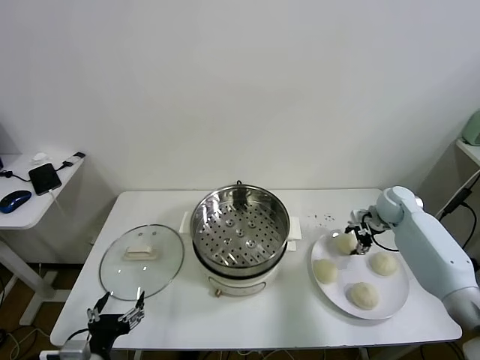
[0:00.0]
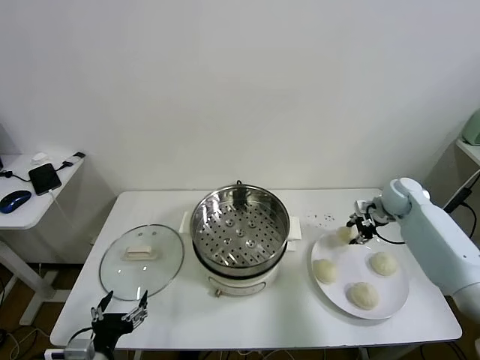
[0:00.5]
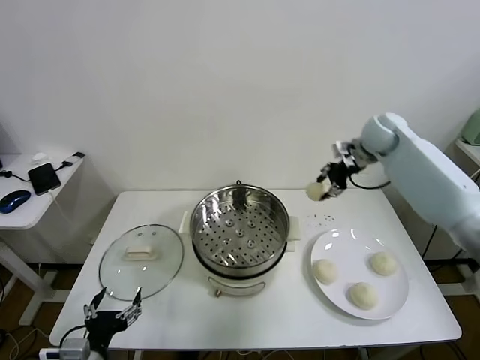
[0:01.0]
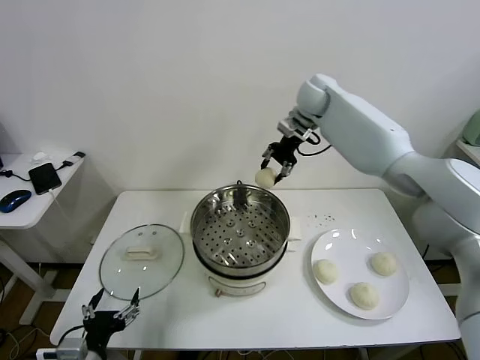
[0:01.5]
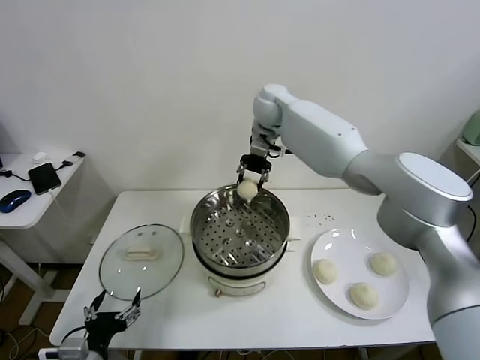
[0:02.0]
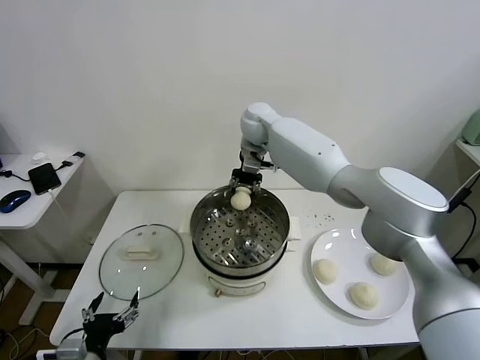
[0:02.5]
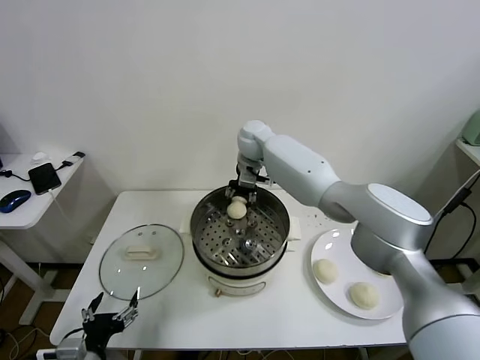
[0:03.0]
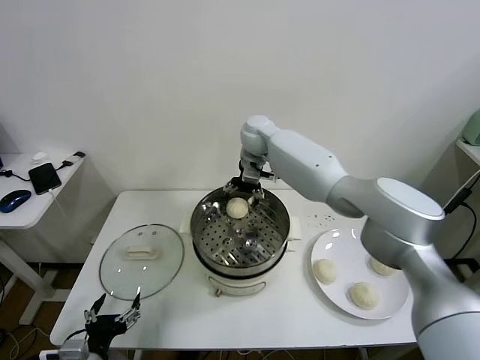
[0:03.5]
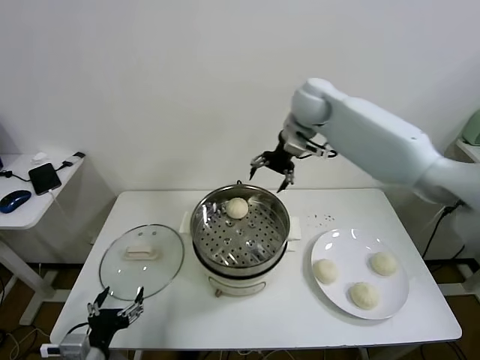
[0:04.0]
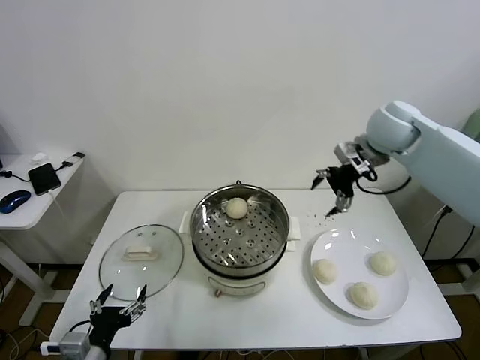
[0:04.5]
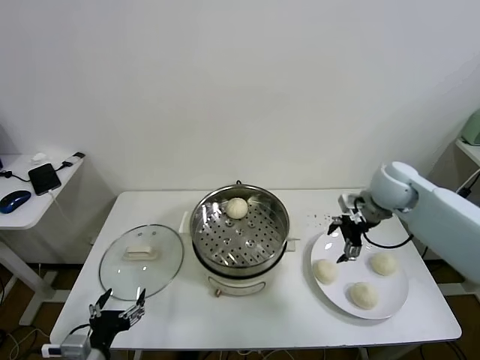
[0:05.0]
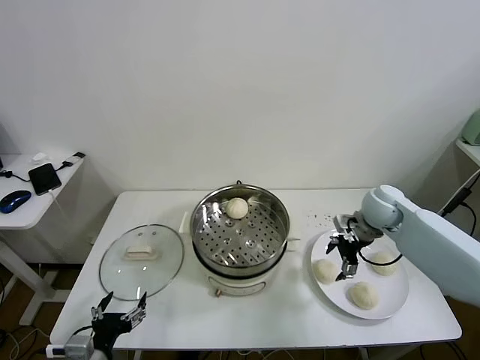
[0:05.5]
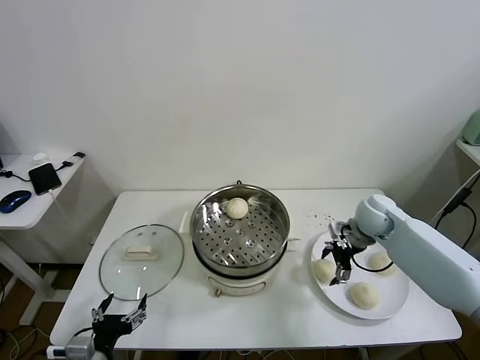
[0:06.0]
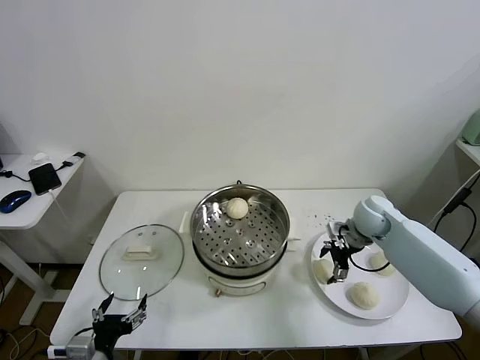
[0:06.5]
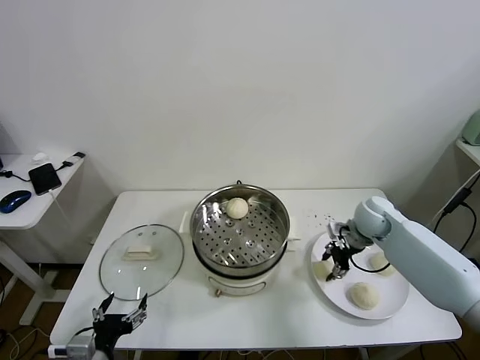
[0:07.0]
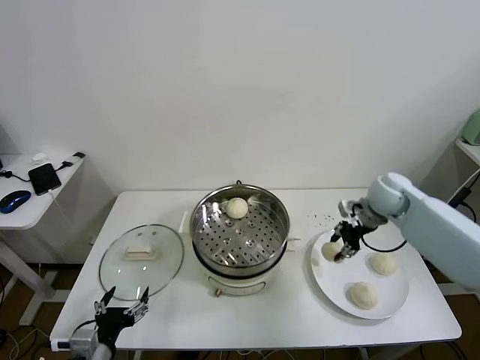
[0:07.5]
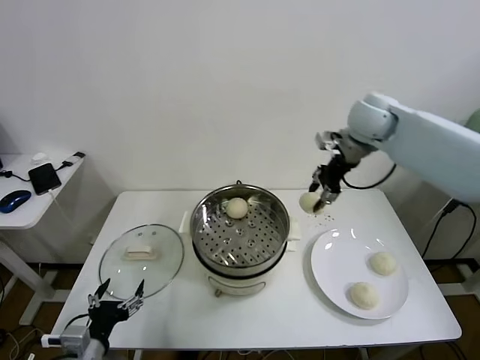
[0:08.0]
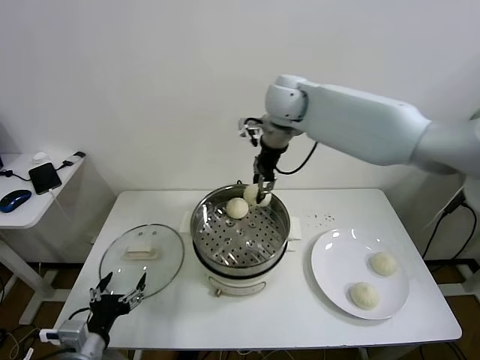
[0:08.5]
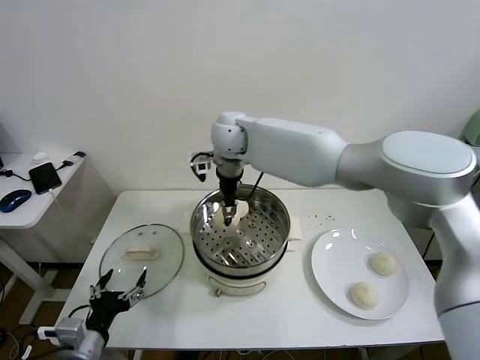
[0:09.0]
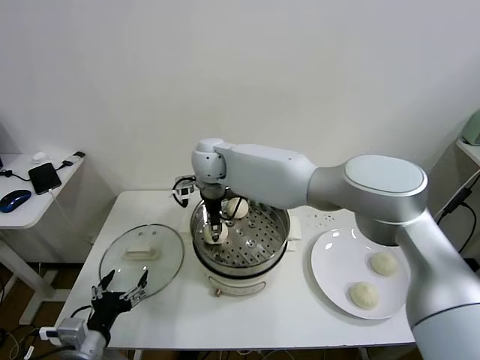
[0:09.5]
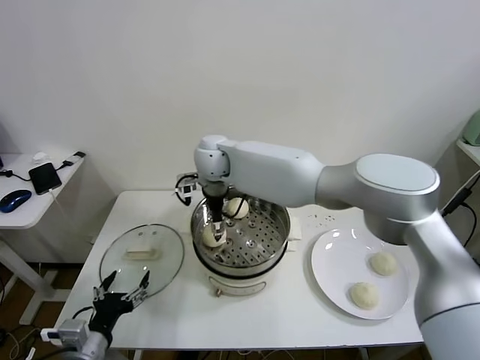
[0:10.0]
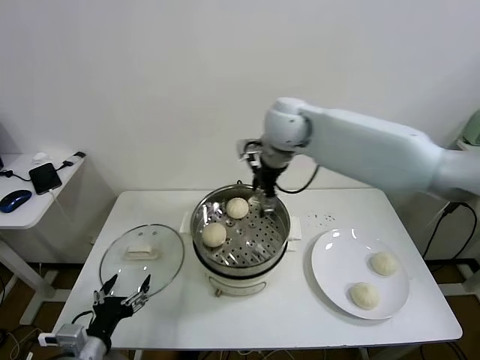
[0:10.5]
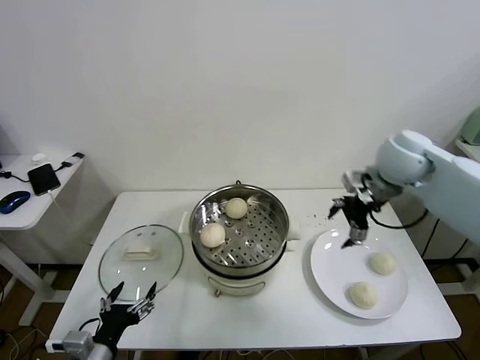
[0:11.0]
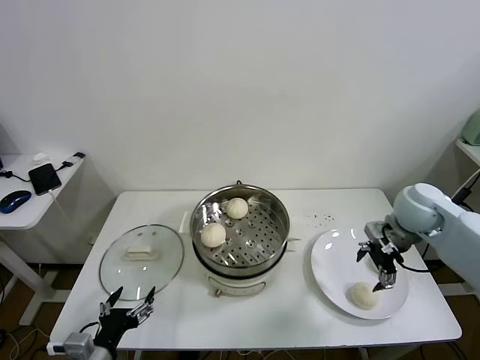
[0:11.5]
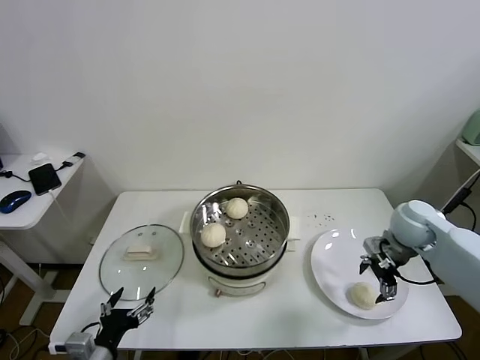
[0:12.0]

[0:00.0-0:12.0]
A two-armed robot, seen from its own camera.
Task of the whole recording: take steamed baozi put them in steamer.
Step, 0:00.5 to 0:03.0: Place the baozi on the steamer with right gripper.
Step, 0:03.5 to 0:07.0: Grasp the baozi in the plate with right gripper.
Step, 0:07.5 to 0:09.5: Place the baozi on the steamer with right gripper.
0:00.0 to 0:02.0: The right gripper shifts roughly 40 cm to the left and upward.
0:02.0 to 0:04.0: The right gripper goes approximately 15 cm to the right and backward, and opens.
0:04.0 to 0:06.0: The right gripper moves downward and to the right, about 30 cm.
0:06.0 to 0:08.0: The right gripper shifts some 25 cm upward, and closes its fingers.
0:08.0 to 0:10.0: The right gripper heads to the left, covering roughly 30 cm, and opens.
0:10.0 to 0:12.0: The right gripper goes approximately 40 cm to the right.

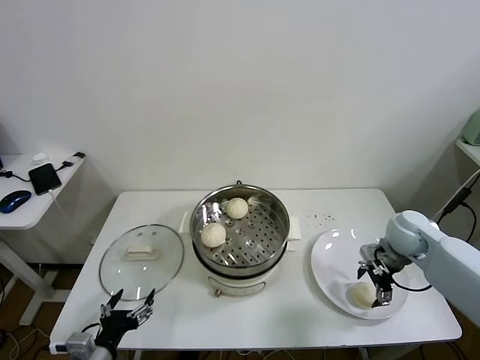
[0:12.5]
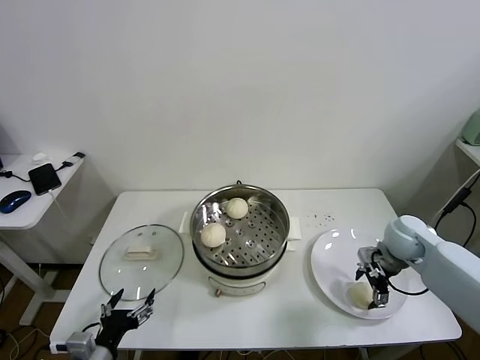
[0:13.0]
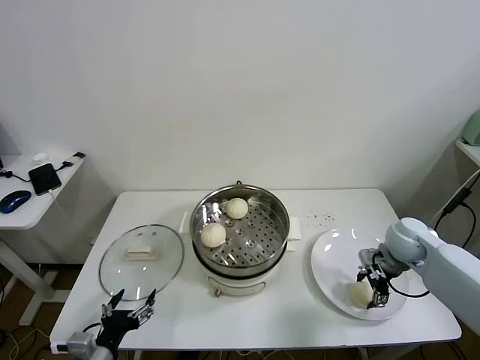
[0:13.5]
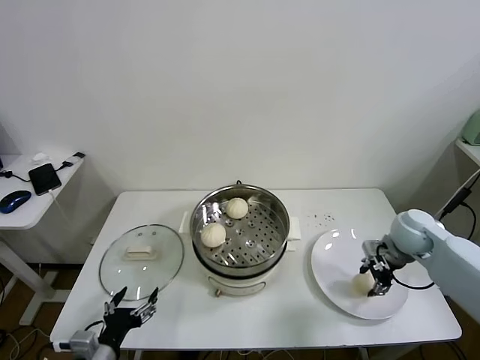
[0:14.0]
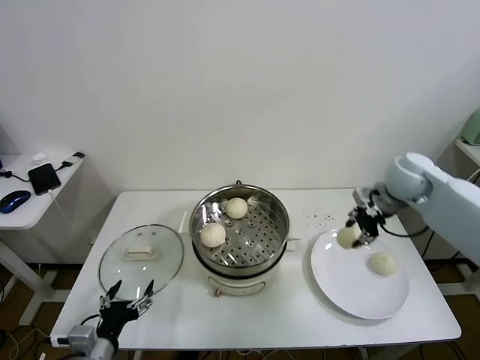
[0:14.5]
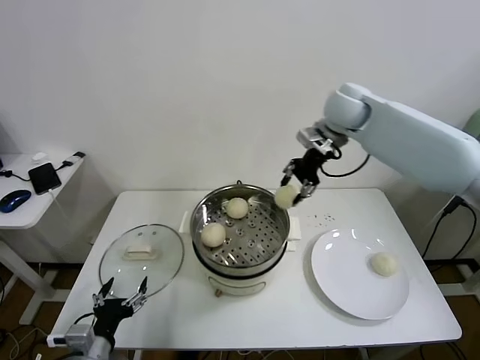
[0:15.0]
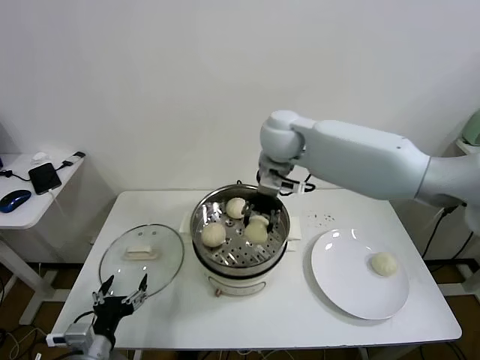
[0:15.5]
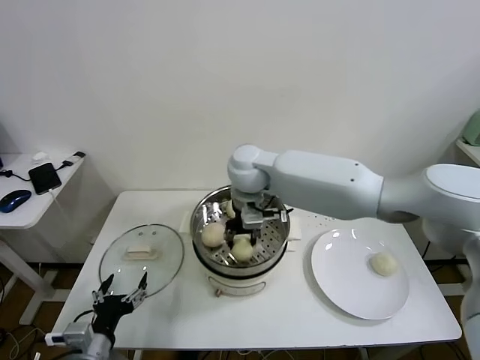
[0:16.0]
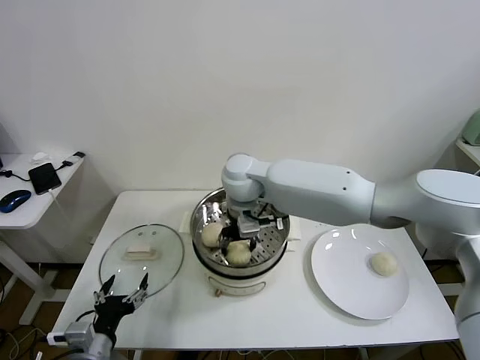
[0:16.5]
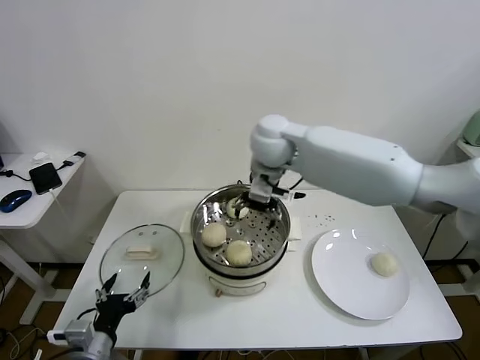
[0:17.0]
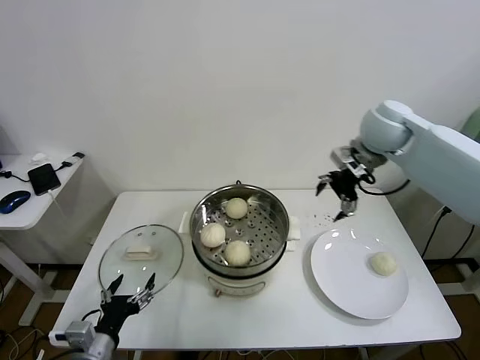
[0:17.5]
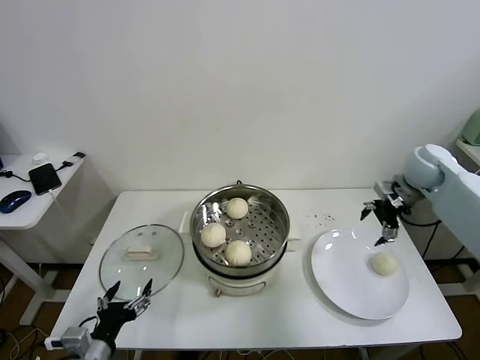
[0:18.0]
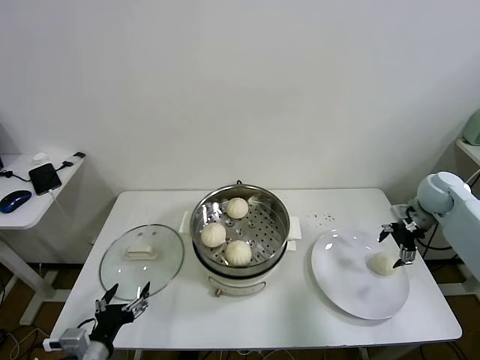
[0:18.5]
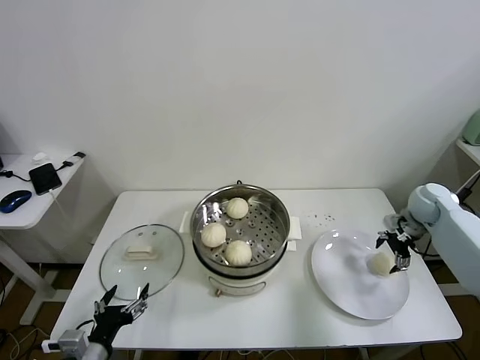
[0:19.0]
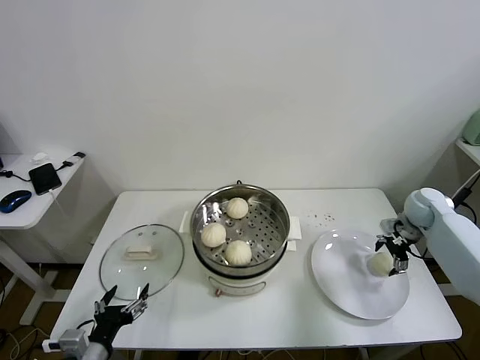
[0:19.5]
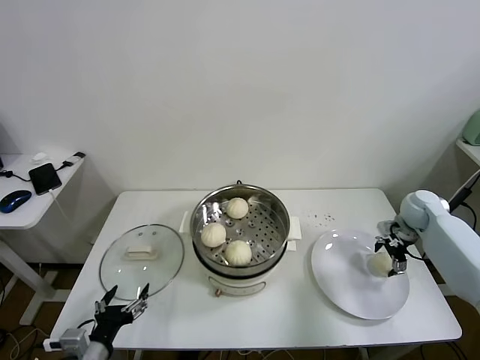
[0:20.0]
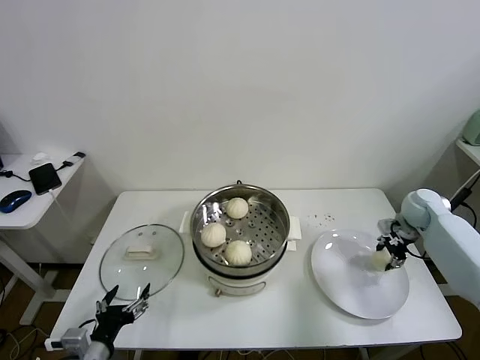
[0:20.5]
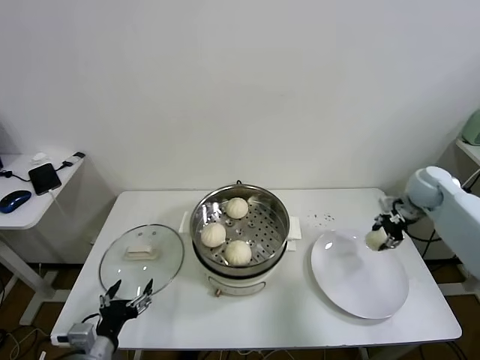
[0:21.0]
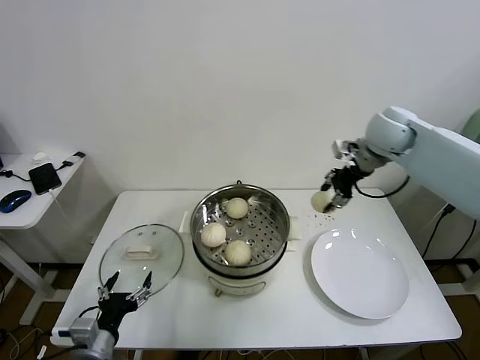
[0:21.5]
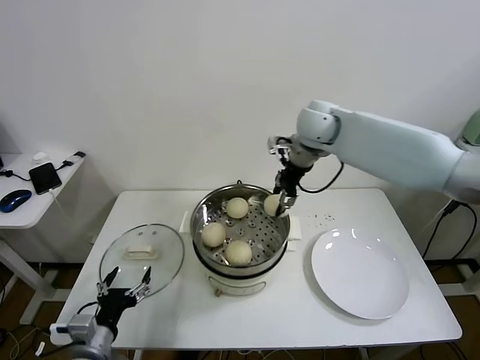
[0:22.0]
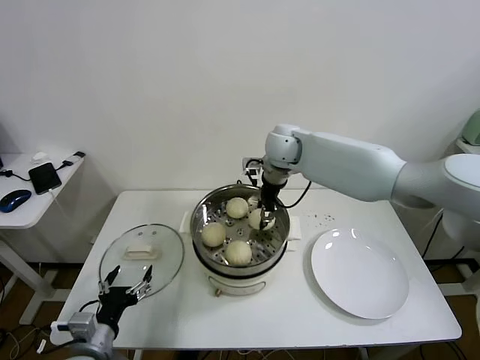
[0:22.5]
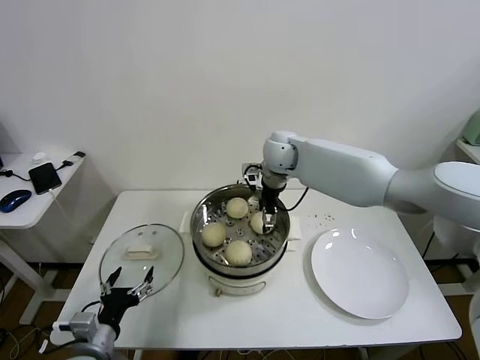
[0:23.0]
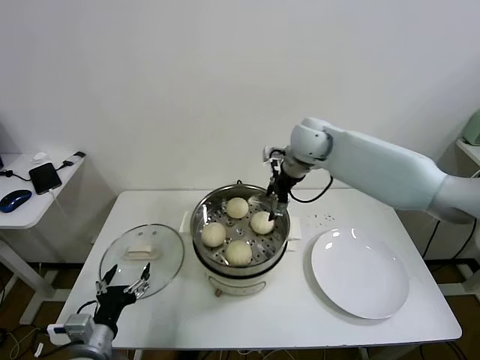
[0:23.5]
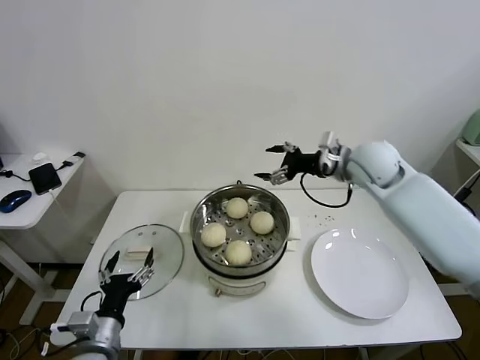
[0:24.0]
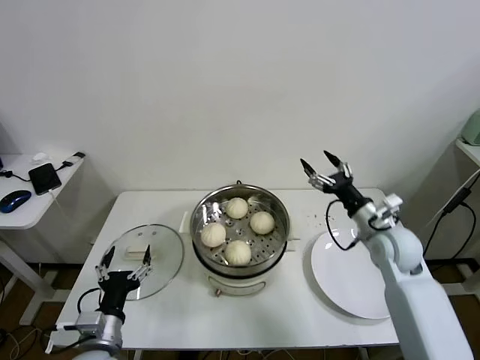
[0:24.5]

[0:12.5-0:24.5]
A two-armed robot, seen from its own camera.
Task of the whole recording: take steamed baozi put them in steamer.
Step, 0:14.0 to 0:16.5: Place the baozi on the steamer with right gripper.
Step, 0:17.0 to 0:20.0: Grasp the baozi in the plate with right gripper.
Step, 0:20.5 to 0:23.0: Place the baozi on the steamer with right gripper.
0:12.5 to 0:14.5: The right gripper moves upward and forward, approximately 15 cm, and closes up.
0:14.5 to 0:16.5: The right gripper shifts about 35 cm to the left, and opens up.
0:16.5 to 0:18.5: The right gripper is displaced to the right by approximately 50 cm, and opens.
0:18.5 to 0:20.5: The right gripper heads downward, covering some 5 cm, and closes its fingers.
0:20.5 to 0:22.5: The right gripper goes about 40 cm to the left and upward.
0:22.5 to 0:24.5: The right gripper is displaced to the right, backward and downward by some 35 cm, and opens.

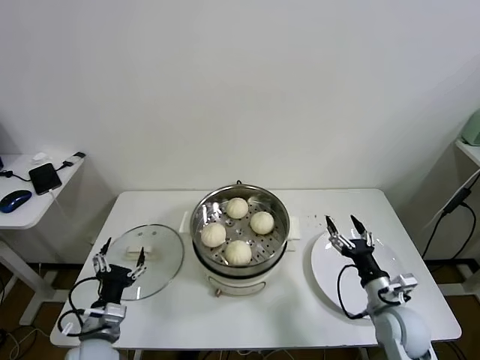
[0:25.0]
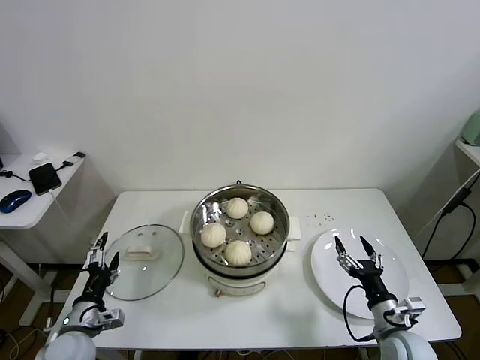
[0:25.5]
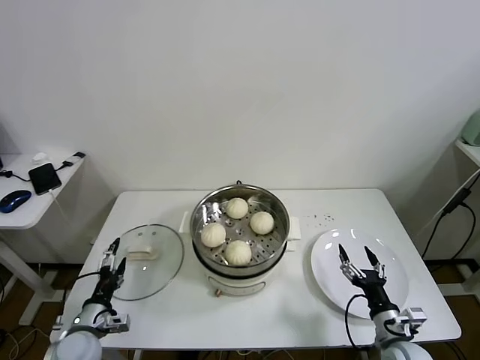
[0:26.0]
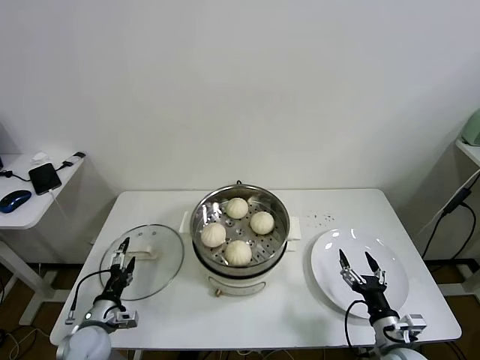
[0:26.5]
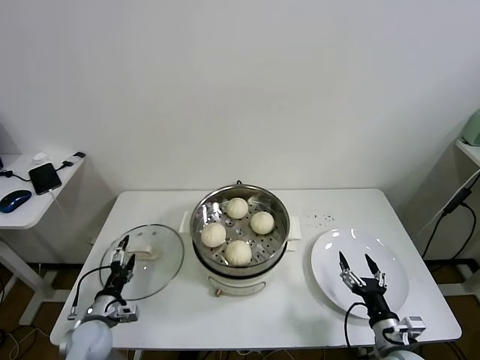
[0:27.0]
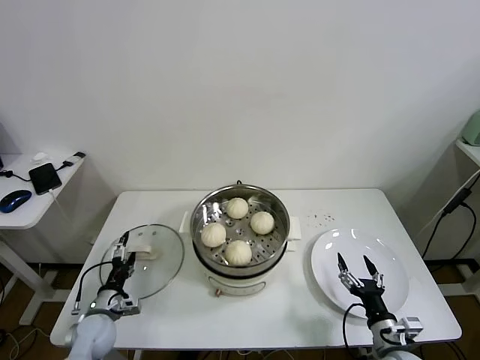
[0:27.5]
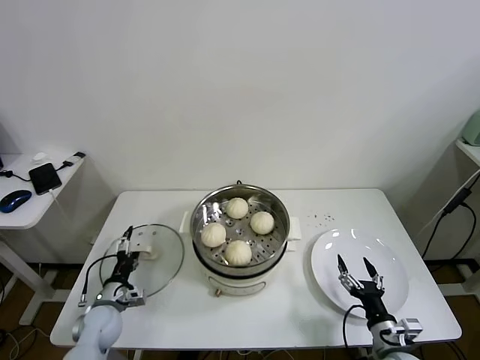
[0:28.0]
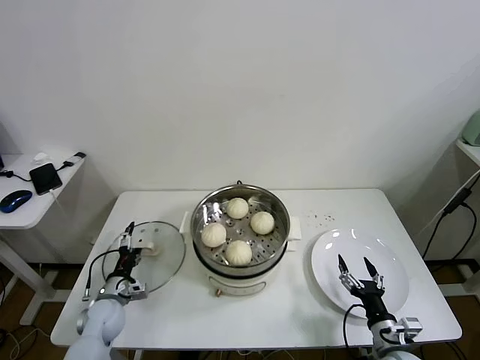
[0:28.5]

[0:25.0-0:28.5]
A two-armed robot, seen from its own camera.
Task of the whole recording: take steamed baozi put them in steamer.
0:25.0 to 0:27.0: The right gripper heads backward and downward, covering roughly 10 cm, while the left gripper shifts about 15 cm downward, to the left and forward.
0:27.0 to 0:28.5: The left gripper shifts some 5 cm forward.
